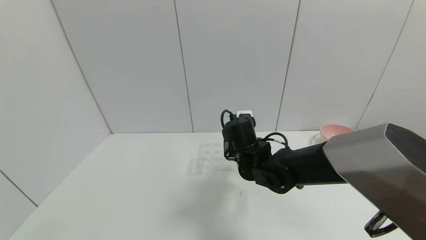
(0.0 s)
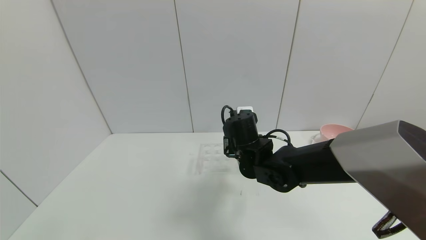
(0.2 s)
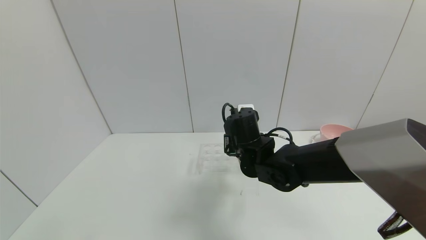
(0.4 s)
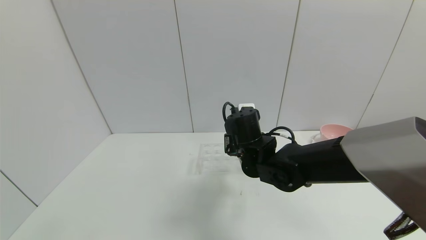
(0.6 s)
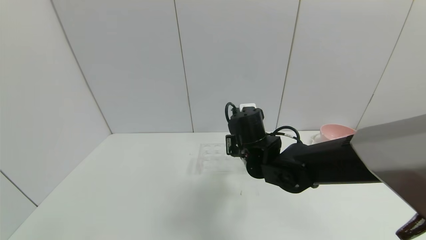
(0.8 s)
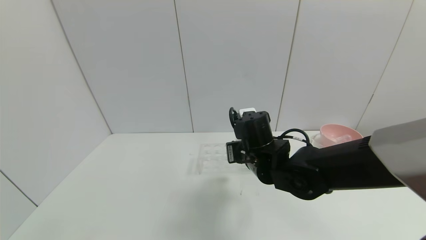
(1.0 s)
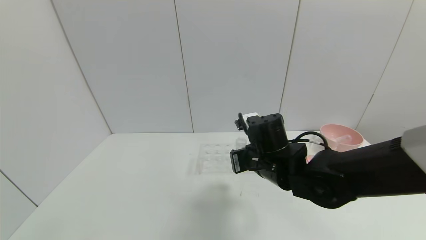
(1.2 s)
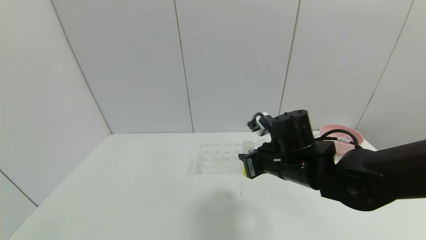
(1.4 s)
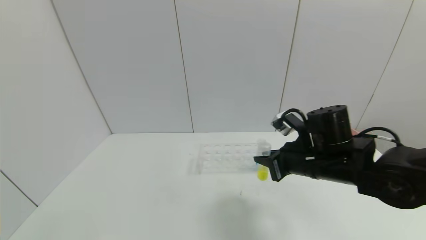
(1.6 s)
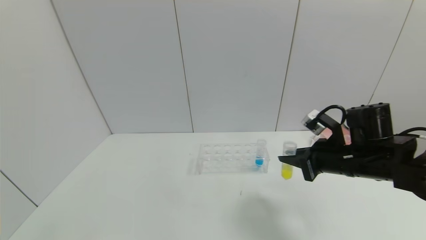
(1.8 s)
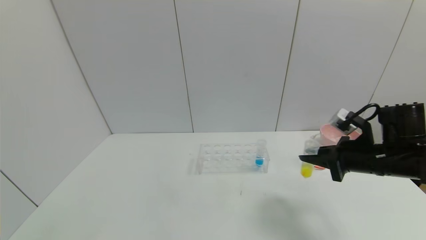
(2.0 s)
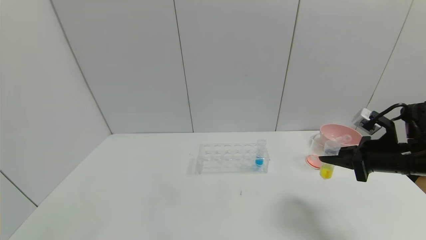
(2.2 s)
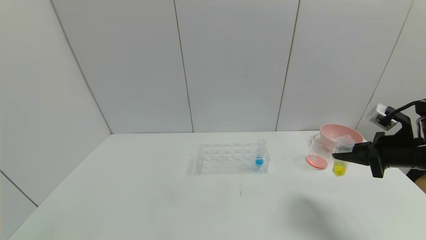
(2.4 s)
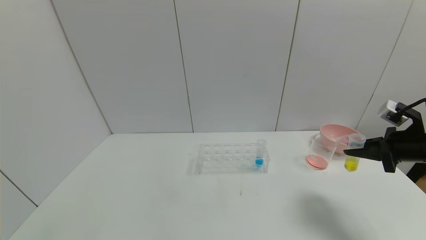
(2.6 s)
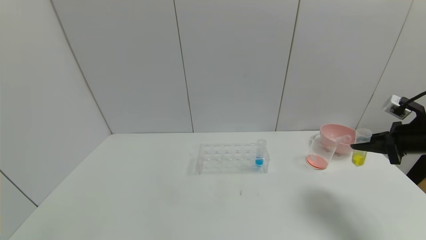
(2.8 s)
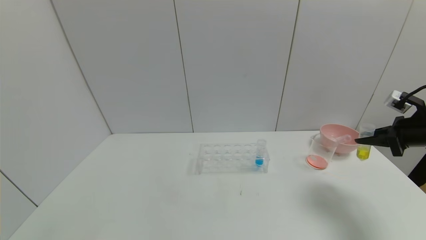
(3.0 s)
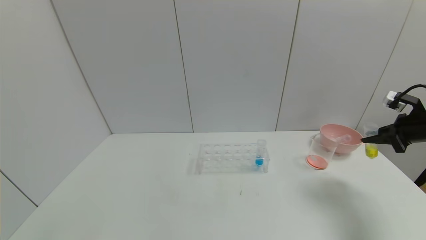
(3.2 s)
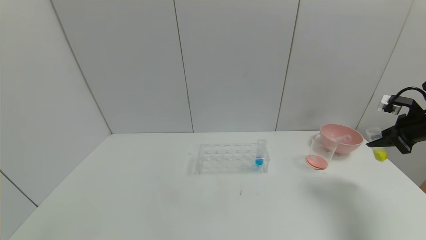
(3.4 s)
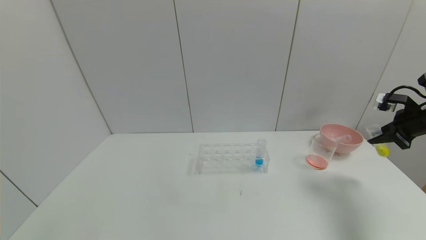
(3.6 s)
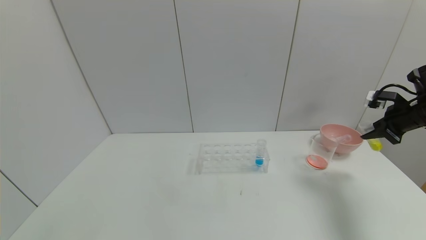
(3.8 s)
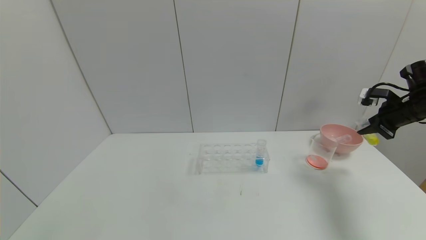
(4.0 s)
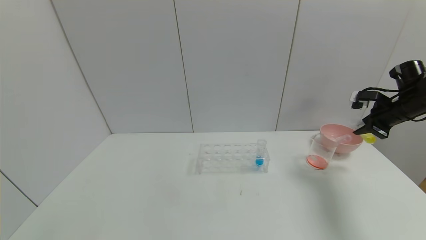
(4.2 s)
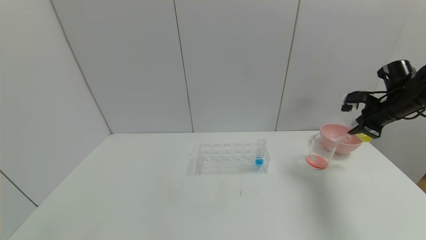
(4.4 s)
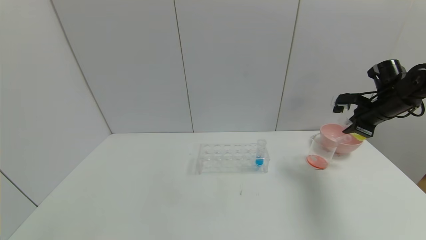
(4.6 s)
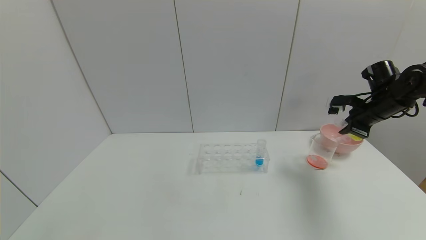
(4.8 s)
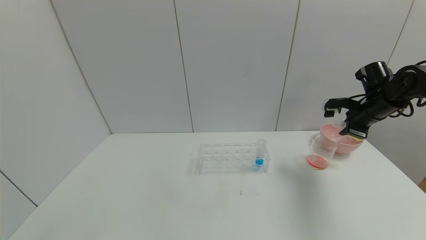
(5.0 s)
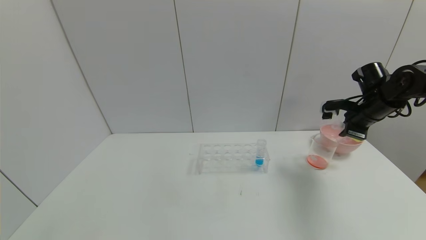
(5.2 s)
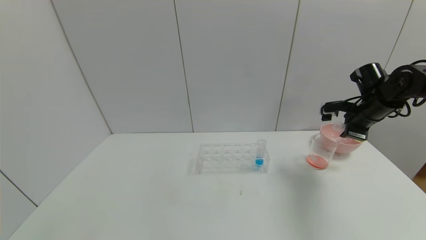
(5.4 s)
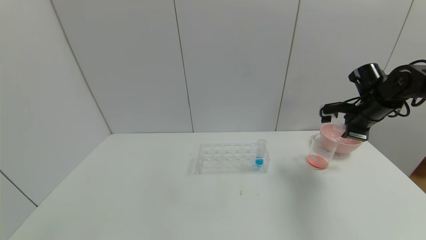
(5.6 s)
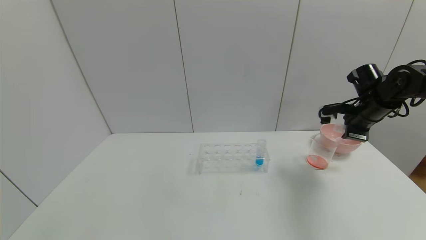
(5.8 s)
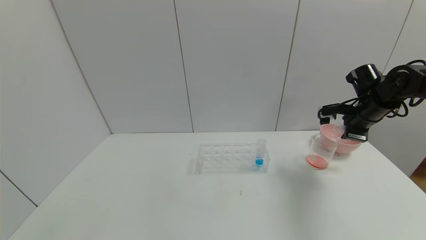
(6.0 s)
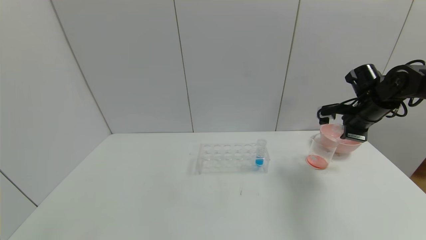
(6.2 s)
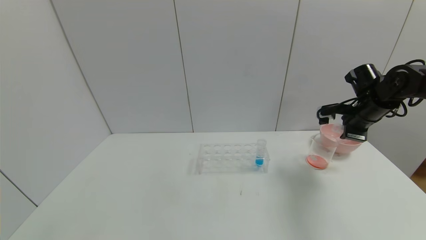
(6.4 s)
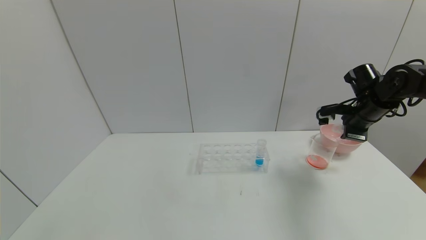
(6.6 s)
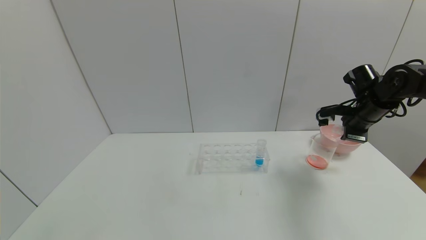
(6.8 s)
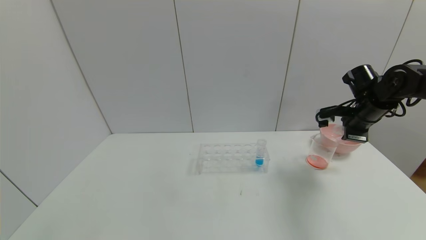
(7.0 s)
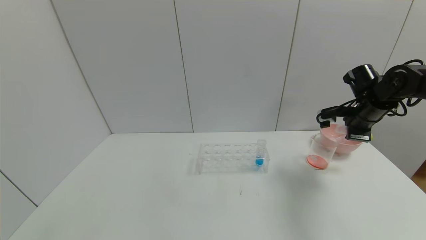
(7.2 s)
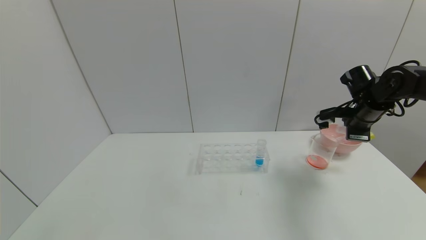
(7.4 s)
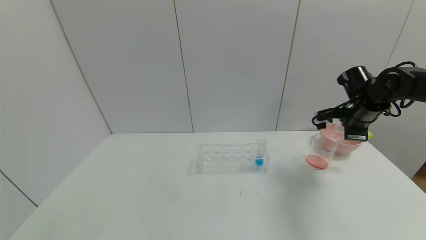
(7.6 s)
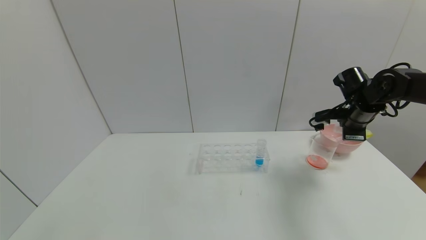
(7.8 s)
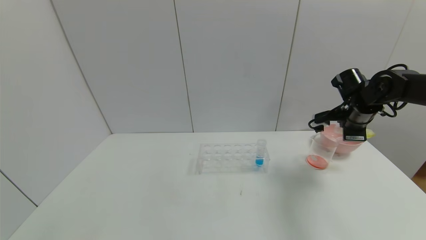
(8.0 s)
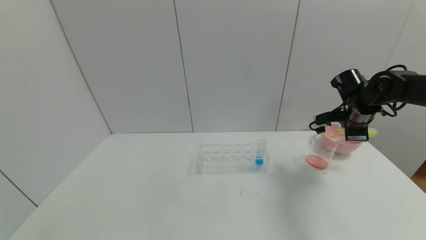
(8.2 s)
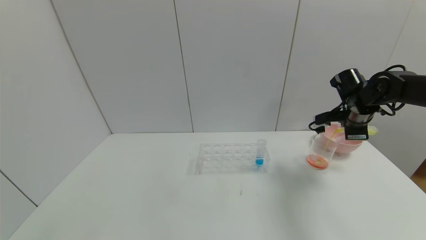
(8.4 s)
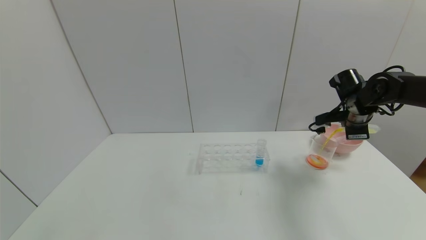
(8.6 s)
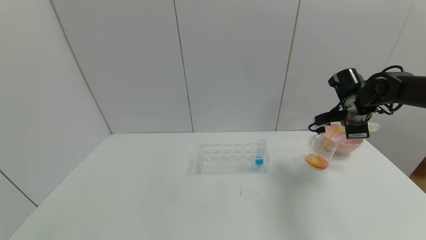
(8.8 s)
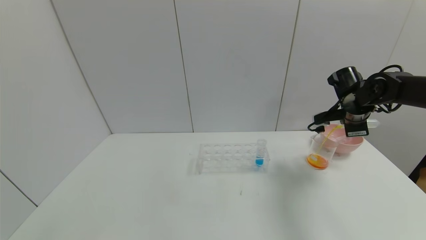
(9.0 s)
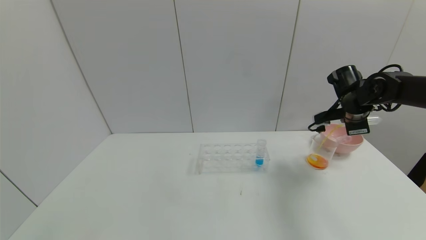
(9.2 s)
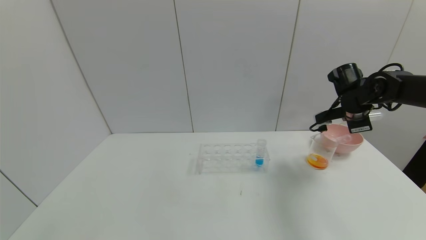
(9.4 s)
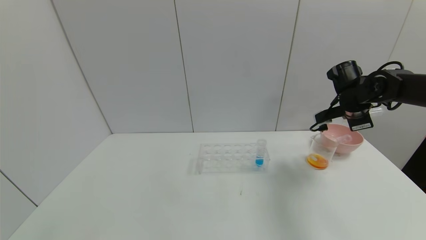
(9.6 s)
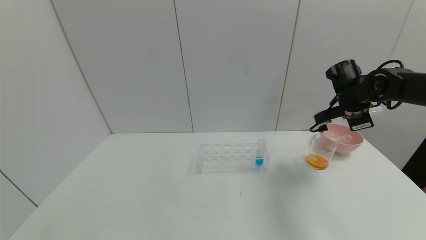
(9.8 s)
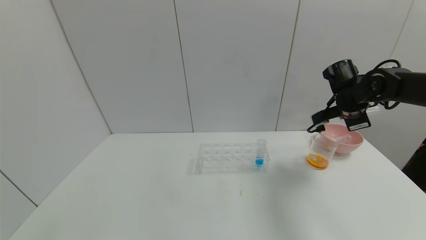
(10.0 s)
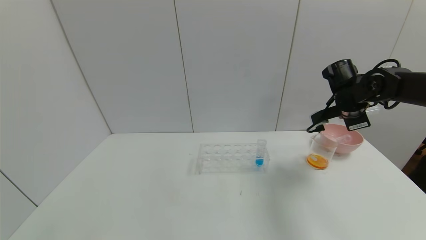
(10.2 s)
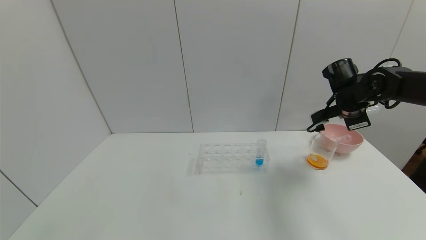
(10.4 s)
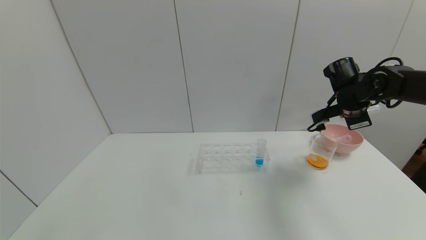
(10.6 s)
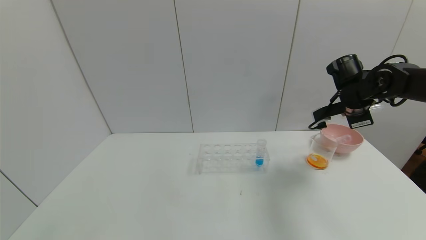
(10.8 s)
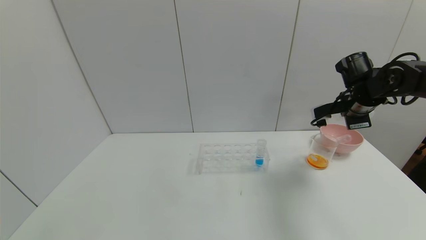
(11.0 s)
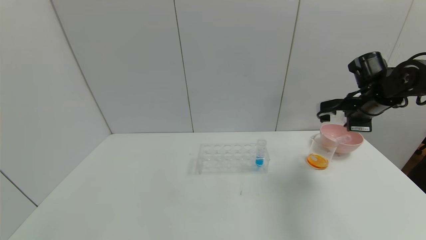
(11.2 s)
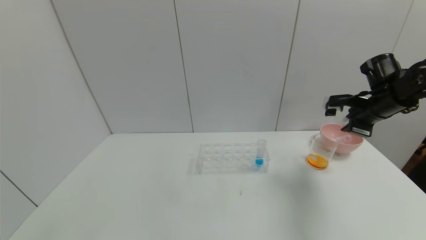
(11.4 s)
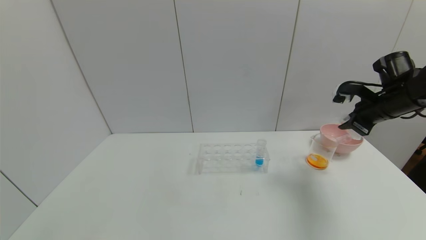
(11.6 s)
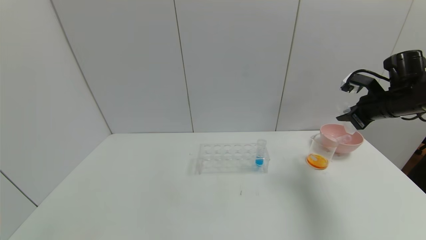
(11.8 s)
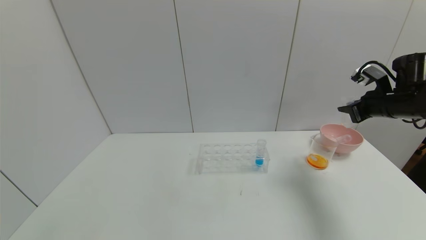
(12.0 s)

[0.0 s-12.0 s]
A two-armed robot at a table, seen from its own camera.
Task of the whole recording: pick up the test tube with yellow pigment and the test tube with red pigment by grippers and pour them into the beaker.
Step, 0.0 to 9.6 s: Pour the yellow reagent into the graduated cylinder with the right gripper.
0.0 to 1.6 s: The right gripper is displaced to the right and backward by about 15 cm.
1.6 to 3.0 s: The right gripper is displaced to the right by approximately 25 cm.
3.0 to 4.4 s: The right gripper heads forward, covering roughly 10 cm.
4.4 to 6.0 s: The right gripper travels to the left by approximately 5 cm.
6.0 to 7.6 s: The grippers move only a little.
7.6 to 9.0 s: The grippers make only small movements.
9.0 to 10.4 s: There are only small adjustments of the grippers.
10.4 to 12.0 s: The right gripper is displaced to the right by roughly 10 cm.

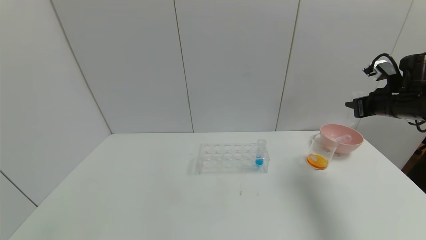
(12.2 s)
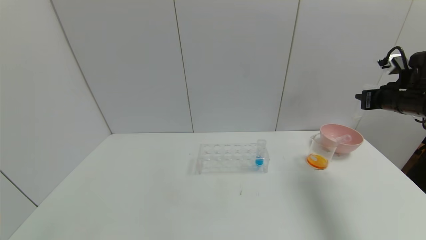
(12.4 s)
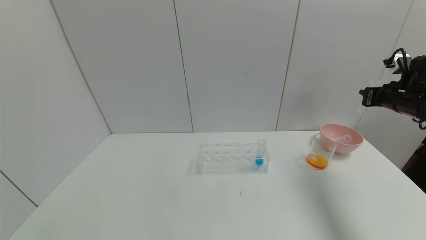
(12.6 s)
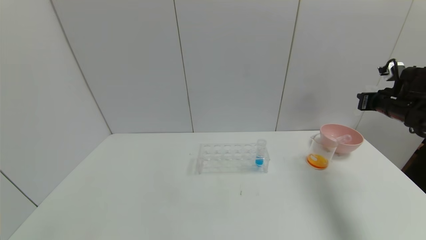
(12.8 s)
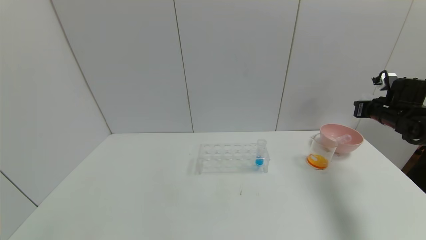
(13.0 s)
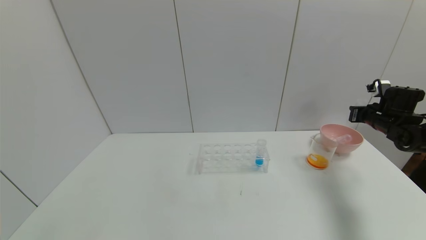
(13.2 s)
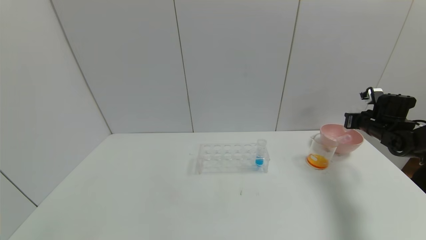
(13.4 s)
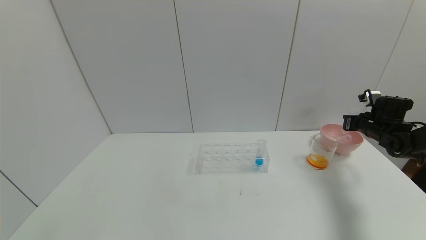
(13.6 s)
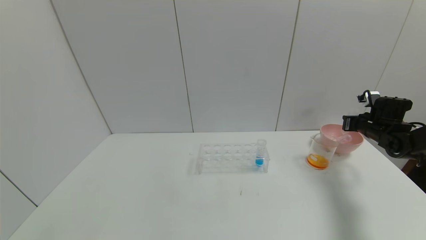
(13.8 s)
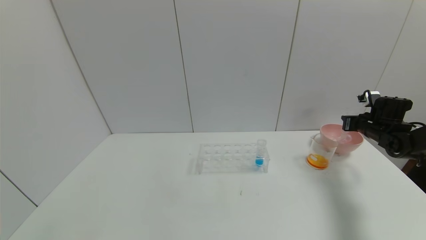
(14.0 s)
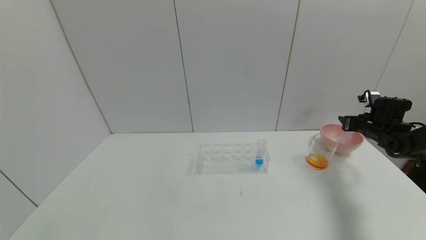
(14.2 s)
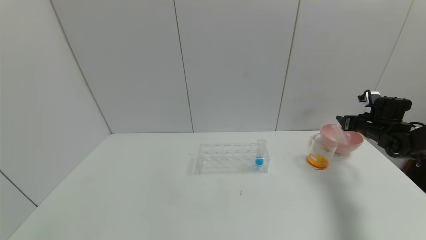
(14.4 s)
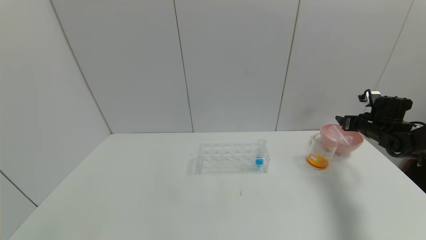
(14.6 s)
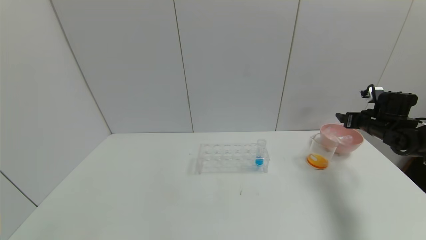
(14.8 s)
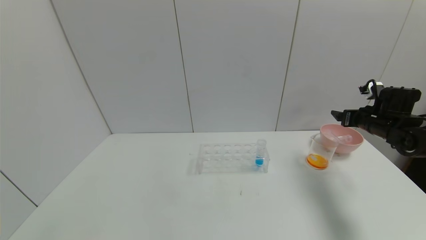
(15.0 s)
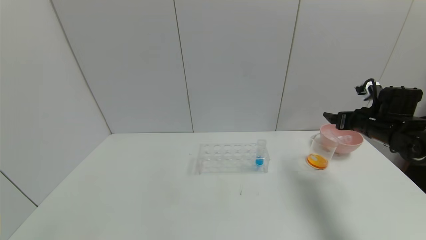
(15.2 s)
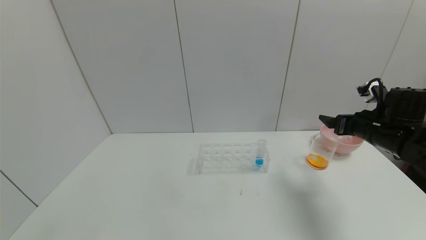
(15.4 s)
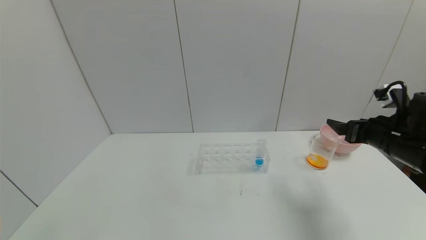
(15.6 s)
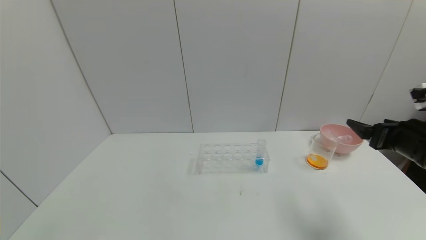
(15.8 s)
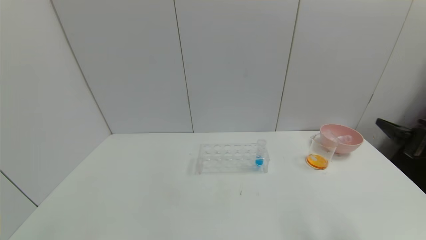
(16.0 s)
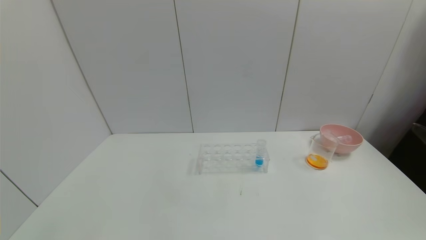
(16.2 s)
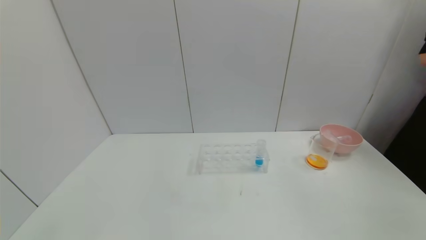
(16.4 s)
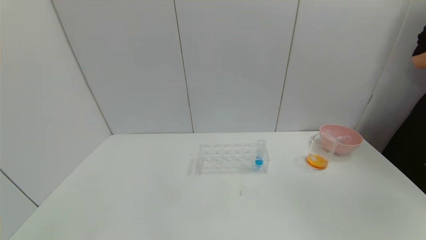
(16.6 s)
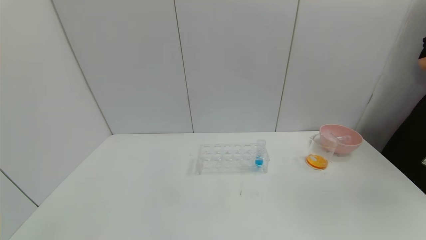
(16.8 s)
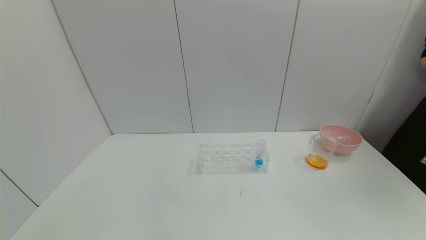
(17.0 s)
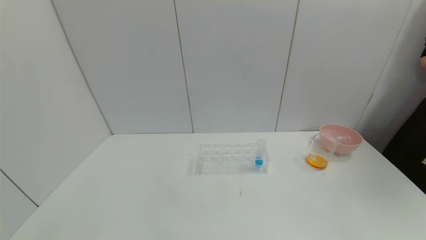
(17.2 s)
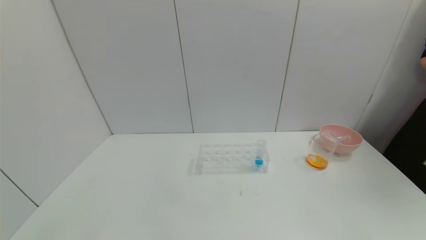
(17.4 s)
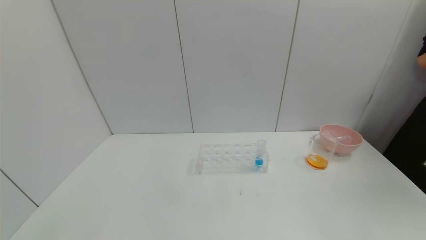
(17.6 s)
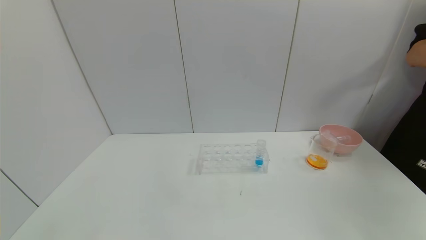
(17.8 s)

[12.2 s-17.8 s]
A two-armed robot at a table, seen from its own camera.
Task of the whole recording: pick up the test tube with yellow pigment and the test tube with red pigment by grippers and pour them into the beaker.
Step, 12.2 to 14.6 s: Place the test tube into the pink bowl with the right gripper.
12.2 to 13.6 s: The right gripper moves downward and forward, roughly 15 cm.
13.6 to 15.0 s: The right gripper ends up roughly 5 cm from where it was, and opens.
15.0 to 16.4 s: The right gripper is displaced backward by some 35 cm.
16.4 to 17.8 s: The right gripper shifts approximately 20 cm downward and backward.
